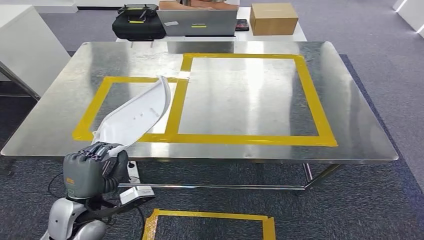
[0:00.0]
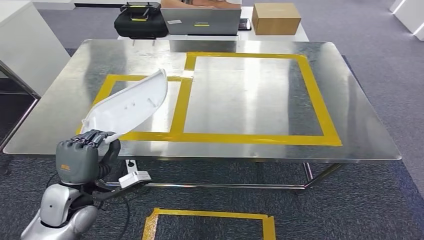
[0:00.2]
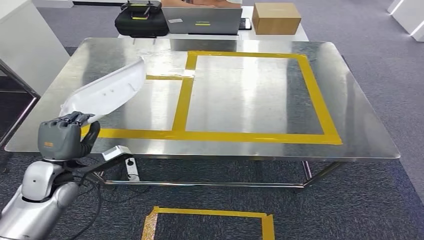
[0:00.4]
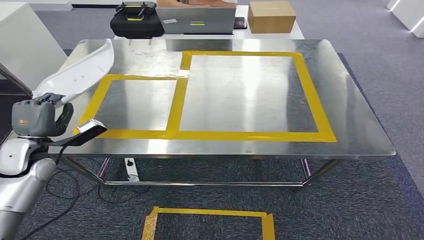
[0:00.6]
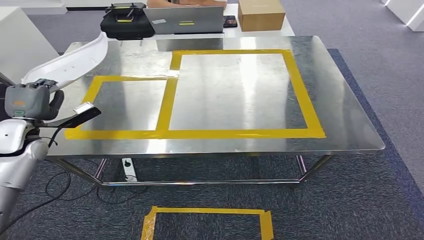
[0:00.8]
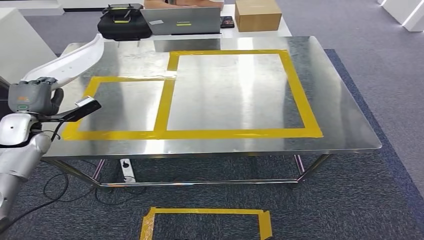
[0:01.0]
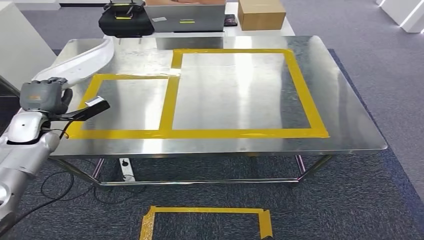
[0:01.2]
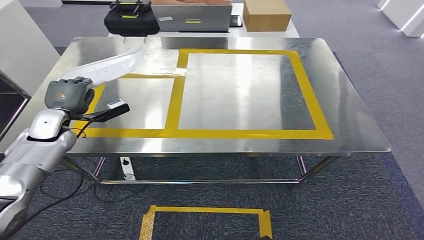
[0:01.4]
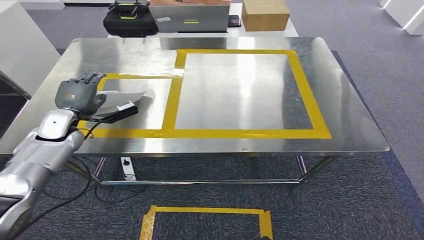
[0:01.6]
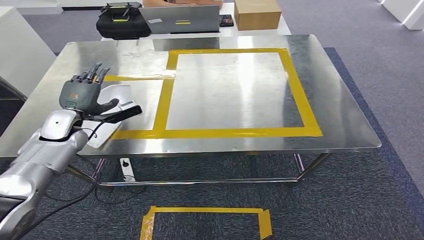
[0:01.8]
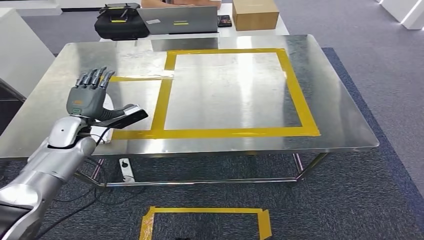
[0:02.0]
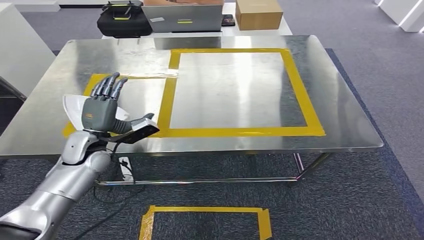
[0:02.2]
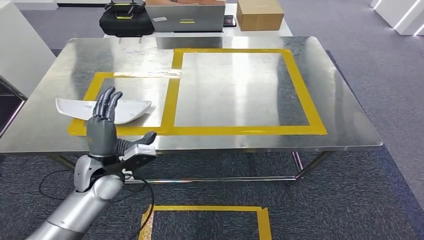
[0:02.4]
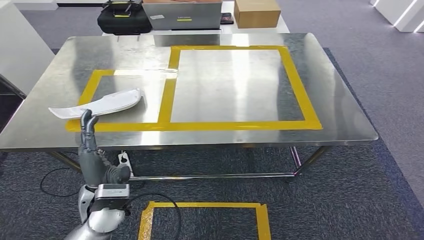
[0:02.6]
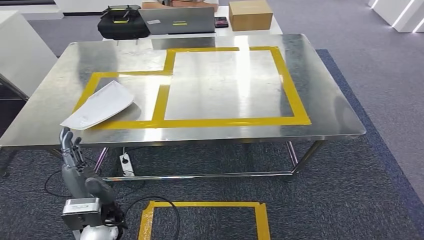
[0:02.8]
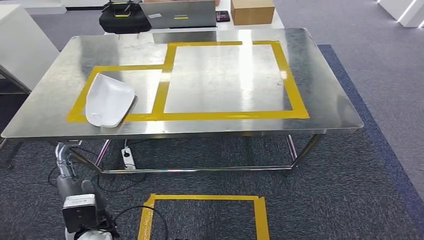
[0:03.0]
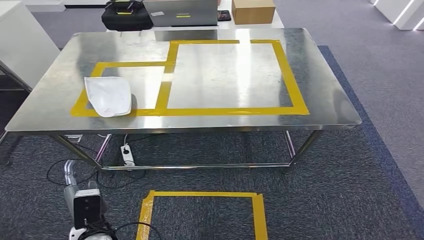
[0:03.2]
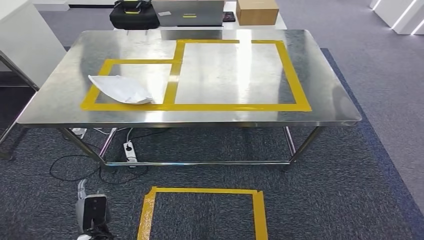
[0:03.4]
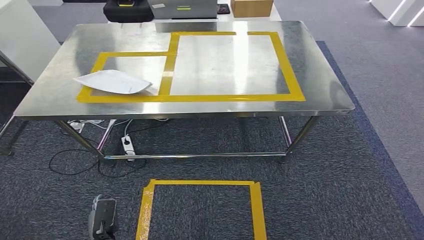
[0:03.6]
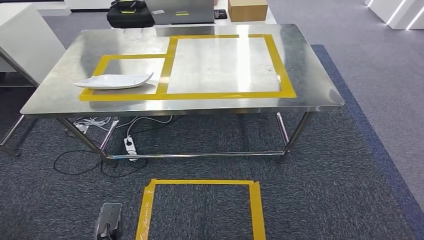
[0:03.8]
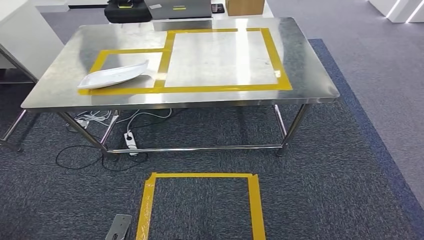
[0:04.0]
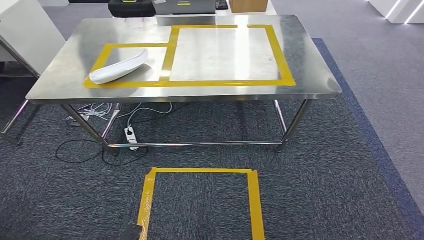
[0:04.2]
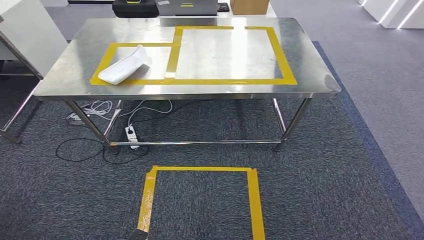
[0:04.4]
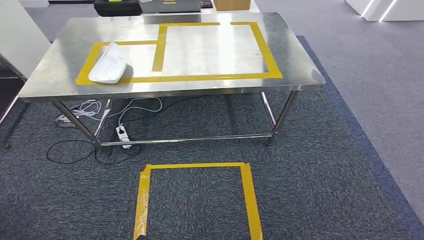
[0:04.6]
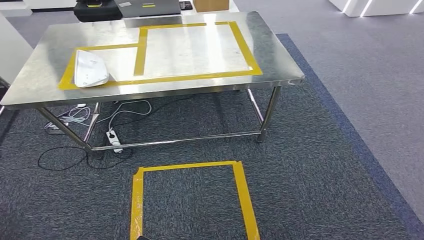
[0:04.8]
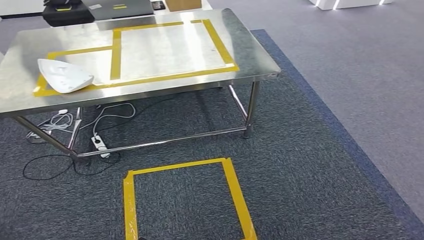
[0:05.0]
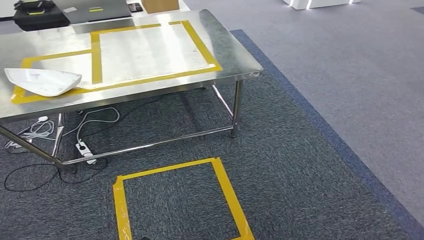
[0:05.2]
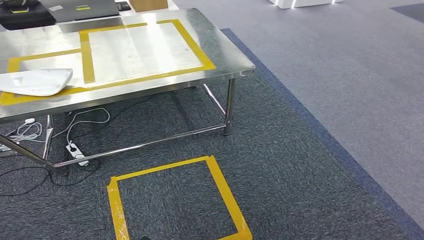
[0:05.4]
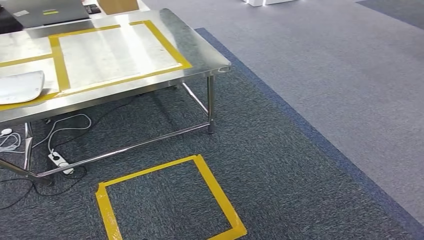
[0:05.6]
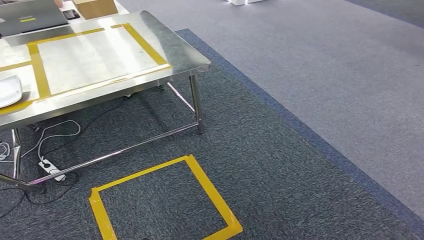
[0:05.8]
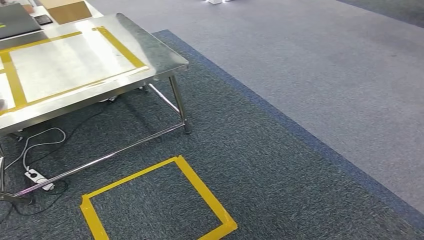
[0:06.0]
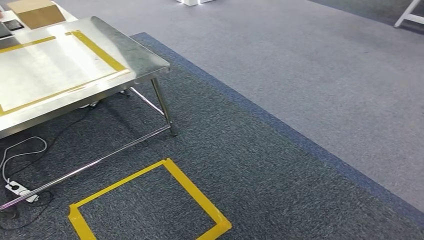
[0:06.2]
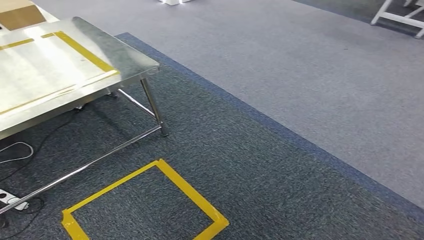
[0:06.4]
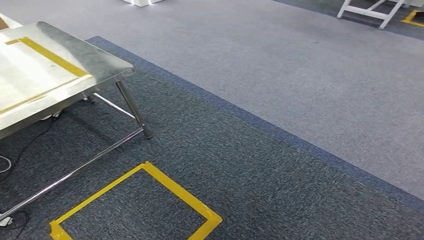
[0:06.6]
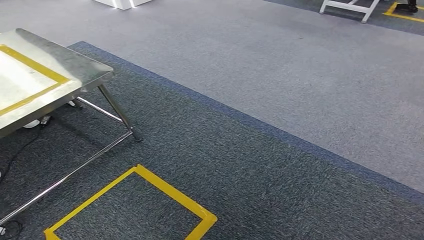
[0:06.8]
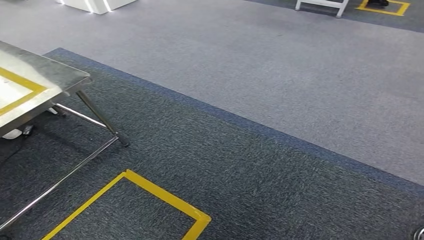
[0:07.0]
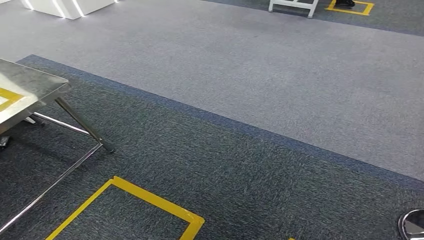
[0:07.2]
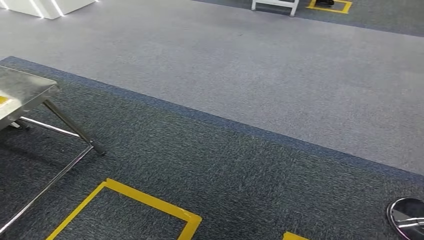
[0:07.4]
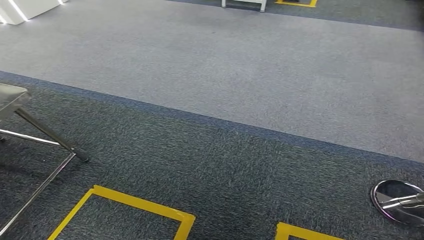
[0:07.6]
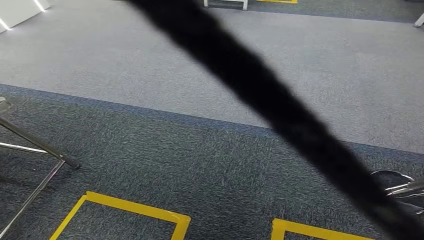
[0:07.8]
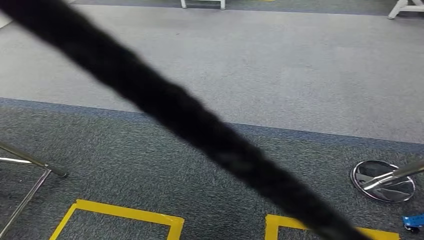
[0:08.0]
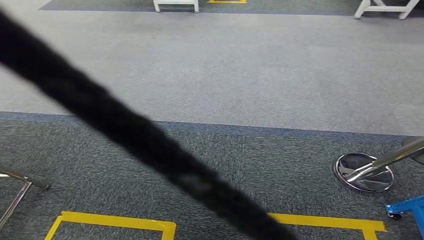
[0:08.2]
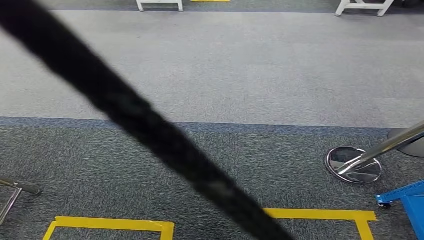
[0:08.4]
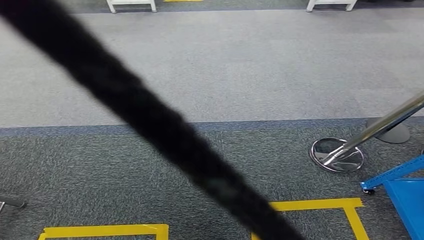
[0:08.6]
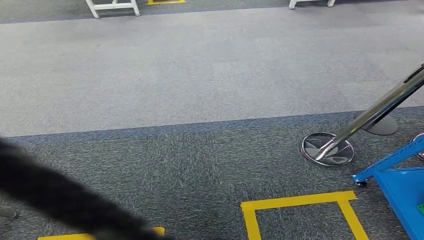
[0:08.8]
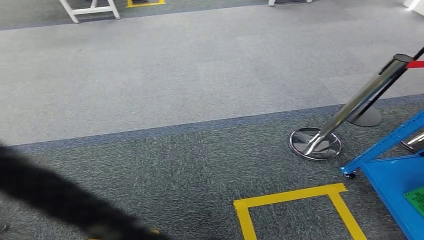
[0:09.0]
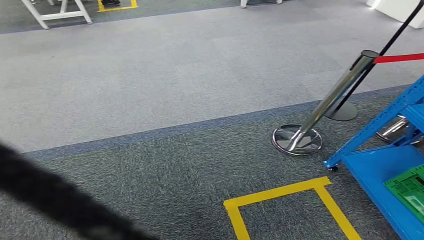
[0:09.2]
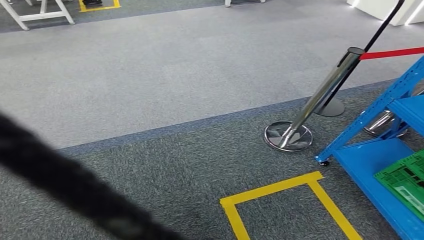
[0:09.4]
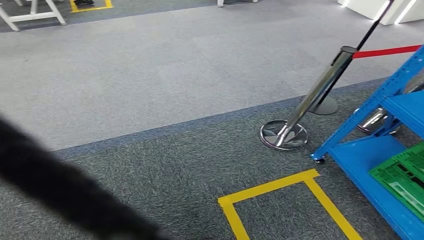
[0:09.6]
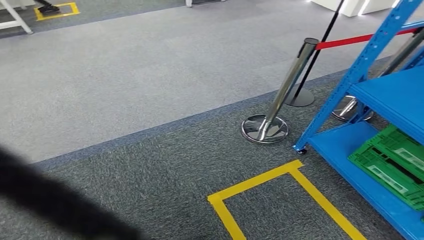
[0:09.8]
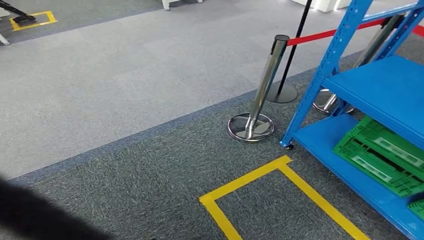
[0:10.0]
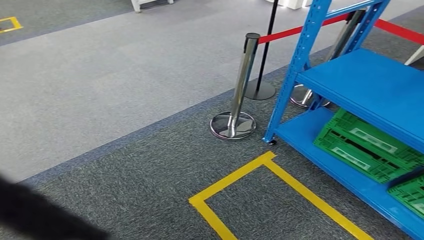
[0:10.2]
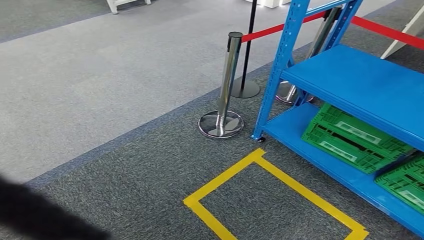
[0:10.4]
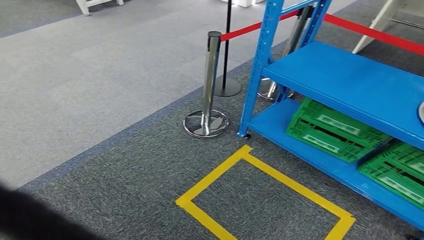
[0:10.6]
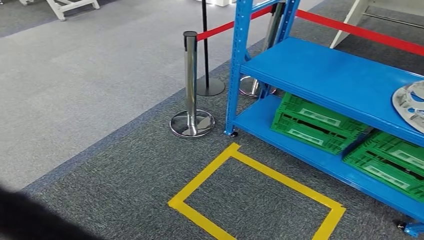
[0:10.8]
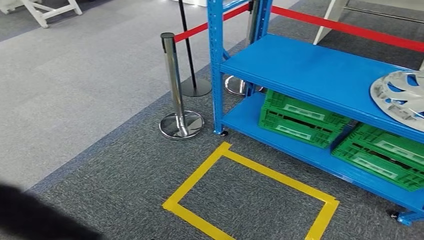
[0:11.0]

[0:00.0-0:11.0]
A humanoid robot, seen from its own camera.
Step, 0:00.0 to 0:03.4: Insert the small component into the corresponding slot on the workbench.

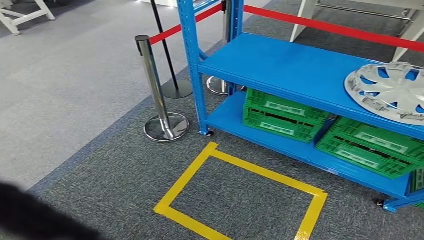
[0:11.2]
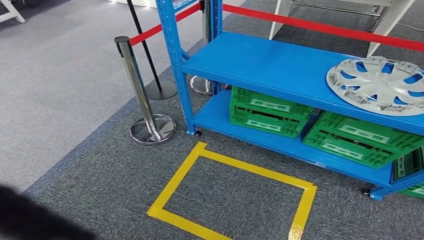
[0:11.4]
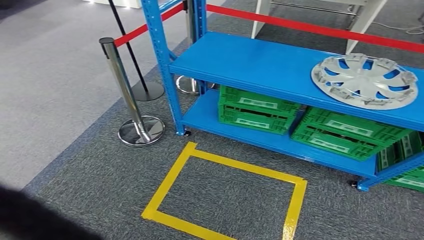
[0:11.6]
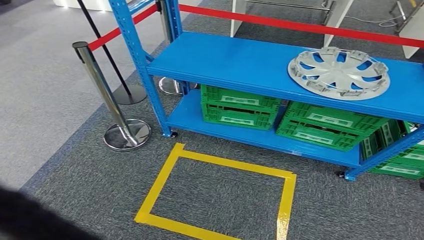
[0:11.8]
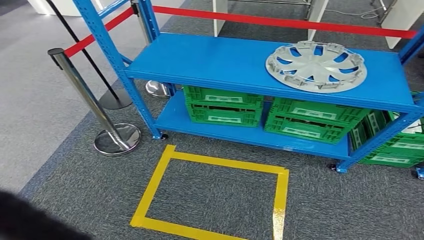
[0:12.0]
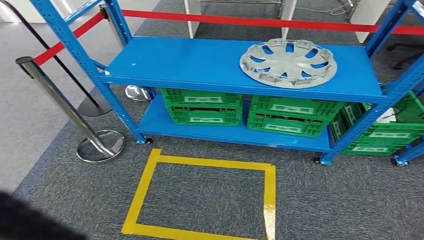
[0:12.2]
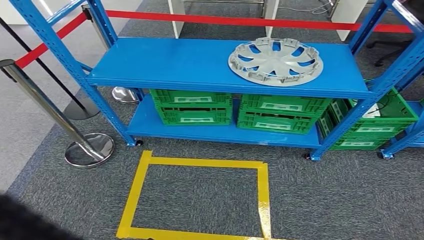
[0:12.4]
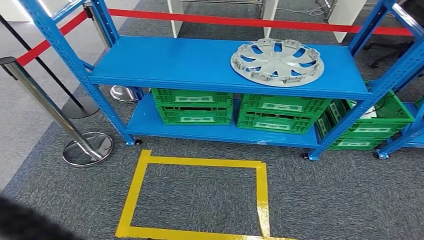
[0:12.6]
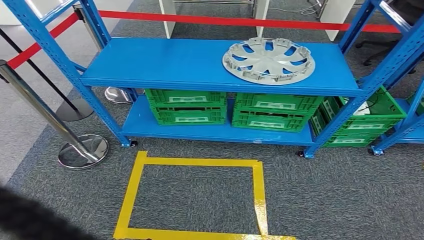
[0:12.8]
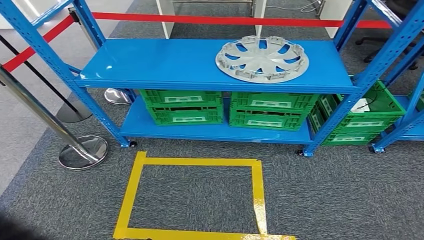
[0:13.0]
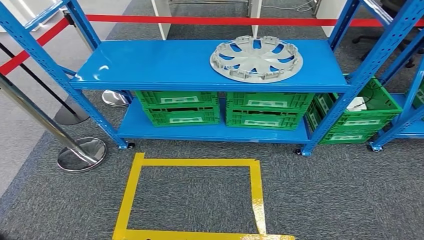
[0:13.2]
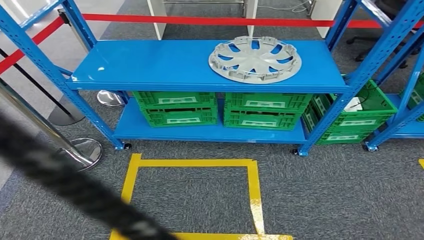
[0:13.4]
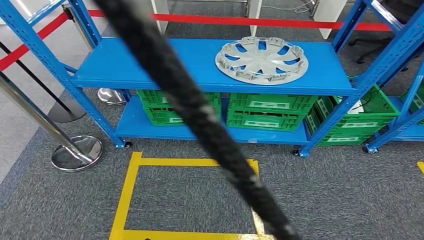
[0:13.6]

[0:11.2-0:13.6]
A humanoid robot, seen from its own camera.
Step, 0:11.2 to 0:13.6: Return to the initial position at the workbench.
